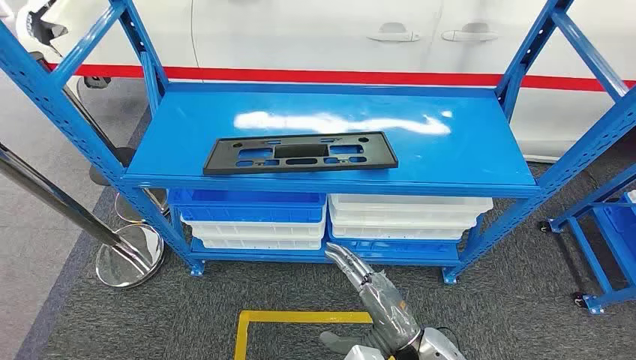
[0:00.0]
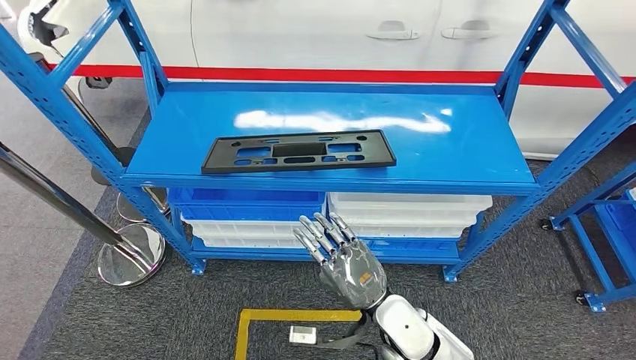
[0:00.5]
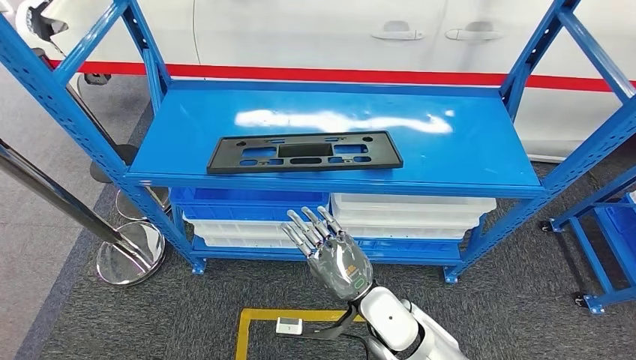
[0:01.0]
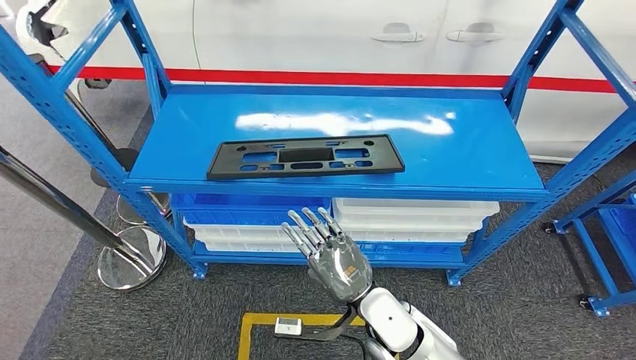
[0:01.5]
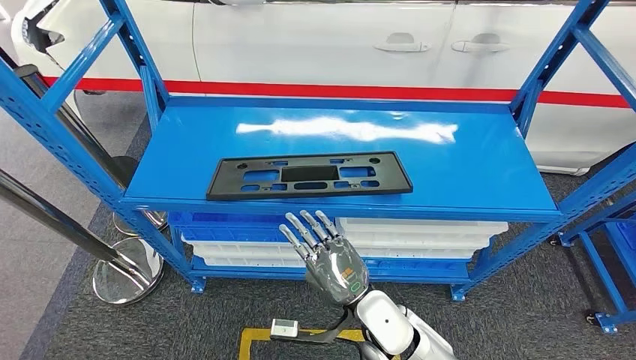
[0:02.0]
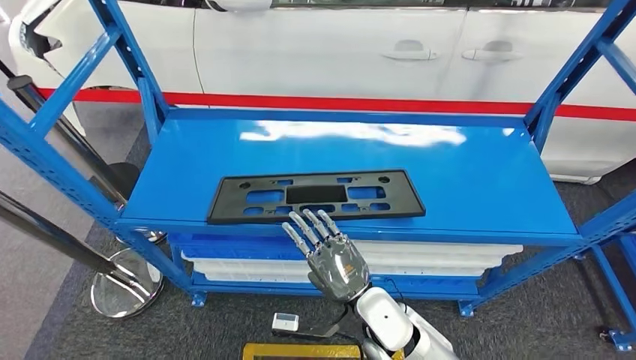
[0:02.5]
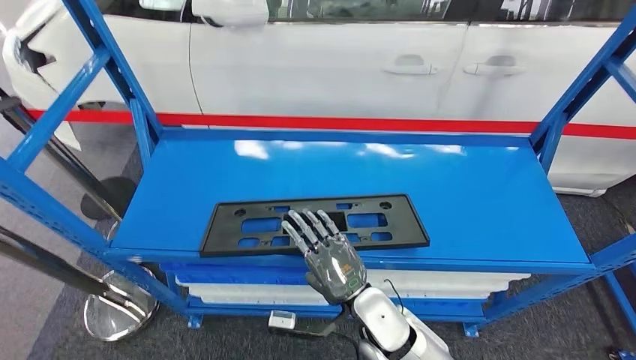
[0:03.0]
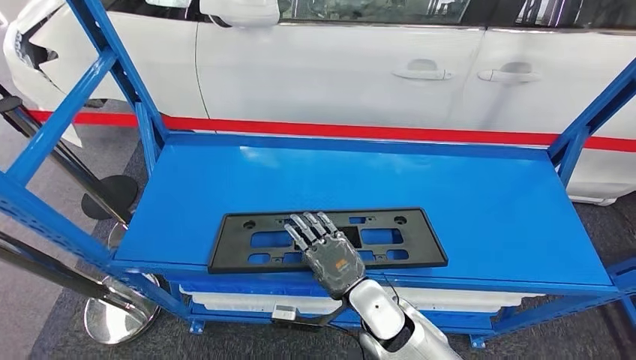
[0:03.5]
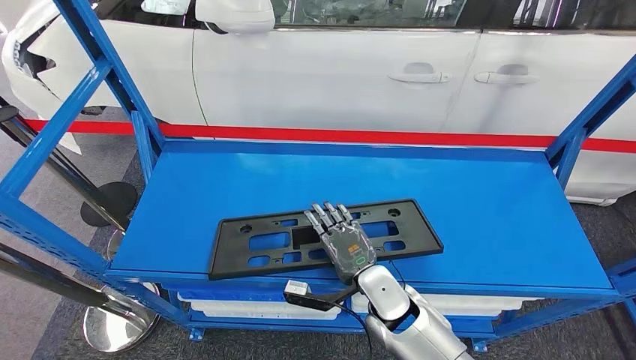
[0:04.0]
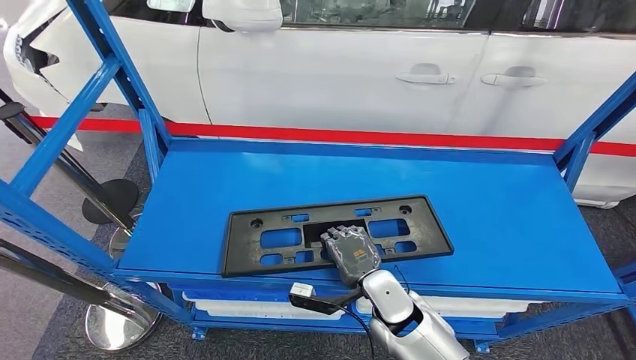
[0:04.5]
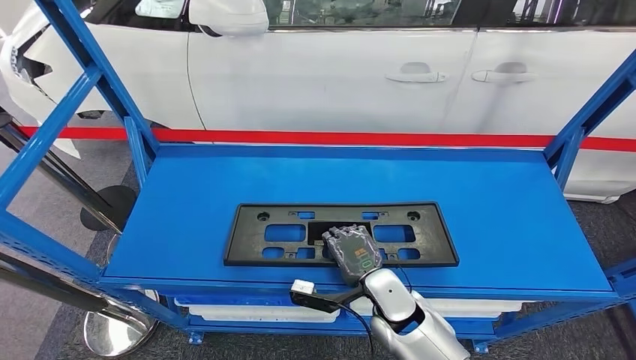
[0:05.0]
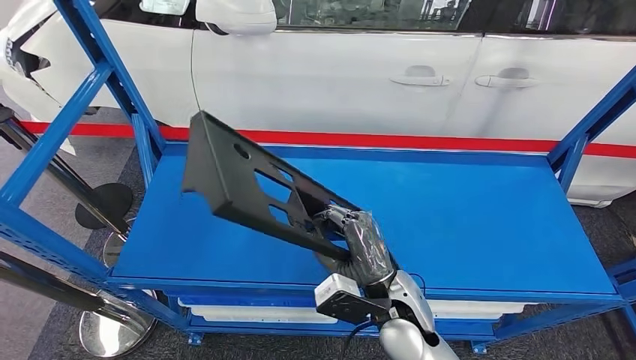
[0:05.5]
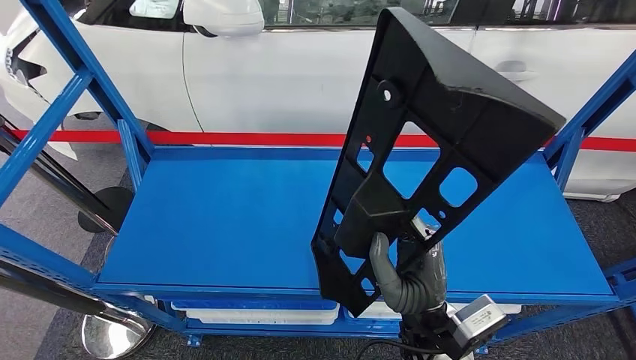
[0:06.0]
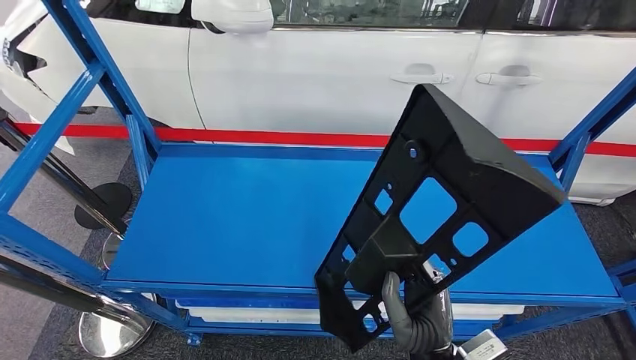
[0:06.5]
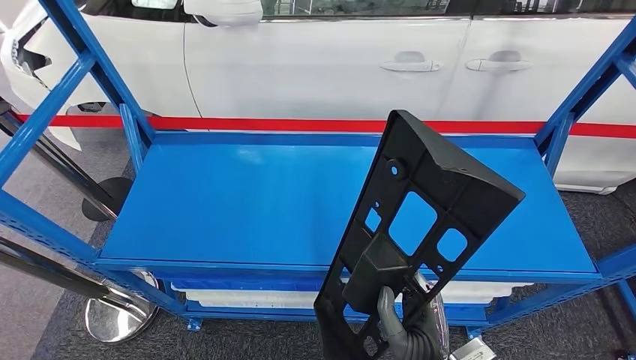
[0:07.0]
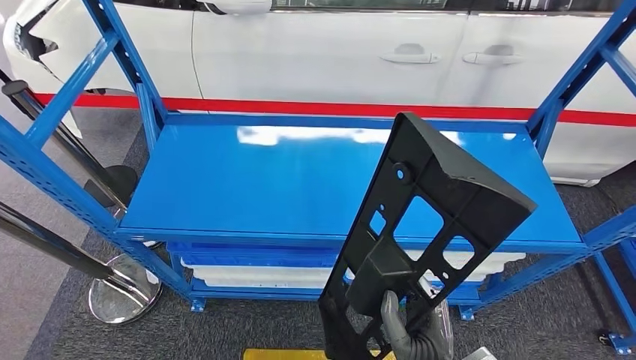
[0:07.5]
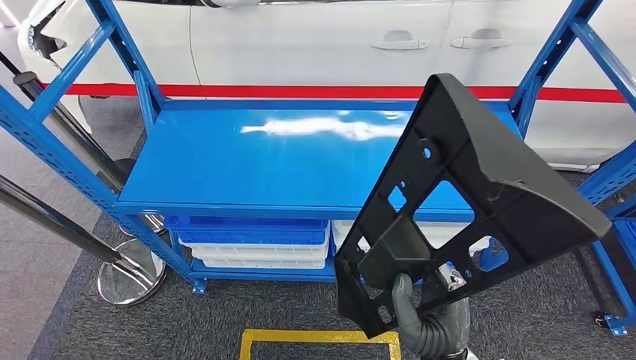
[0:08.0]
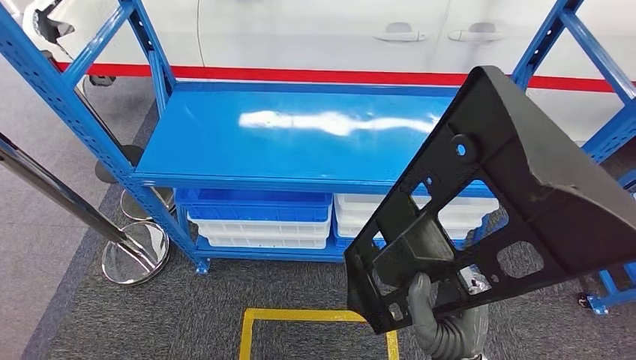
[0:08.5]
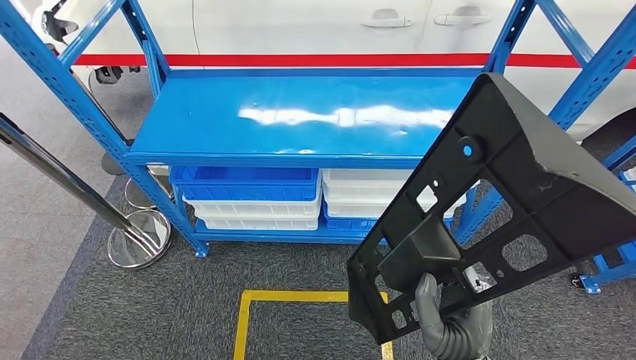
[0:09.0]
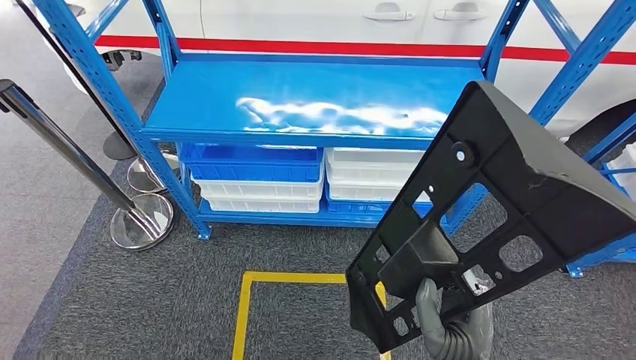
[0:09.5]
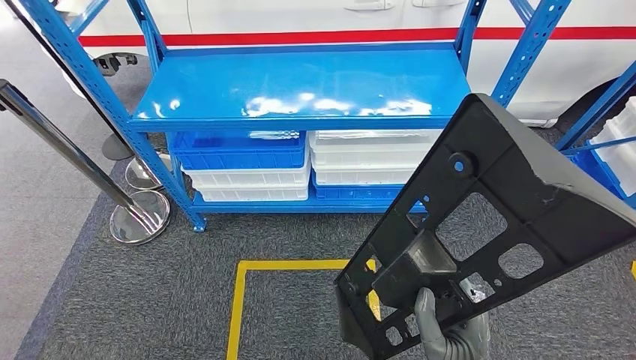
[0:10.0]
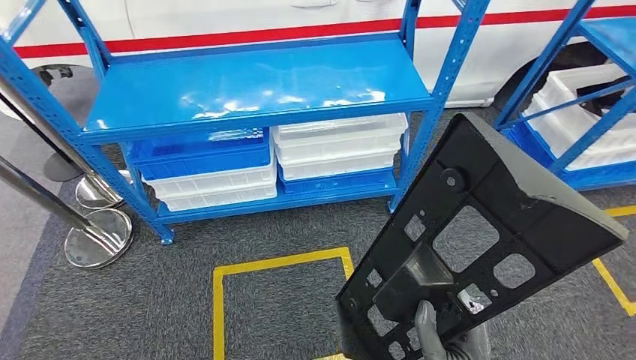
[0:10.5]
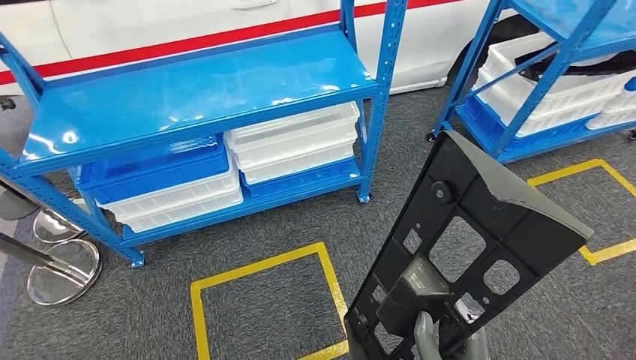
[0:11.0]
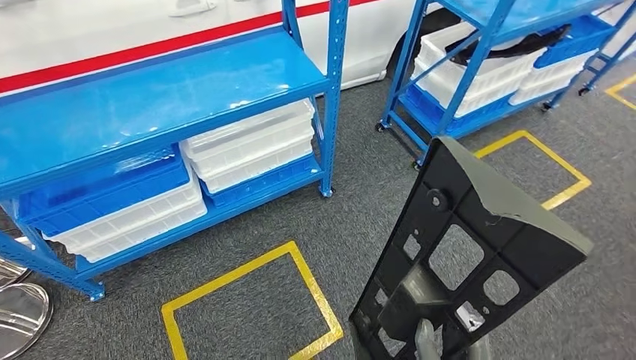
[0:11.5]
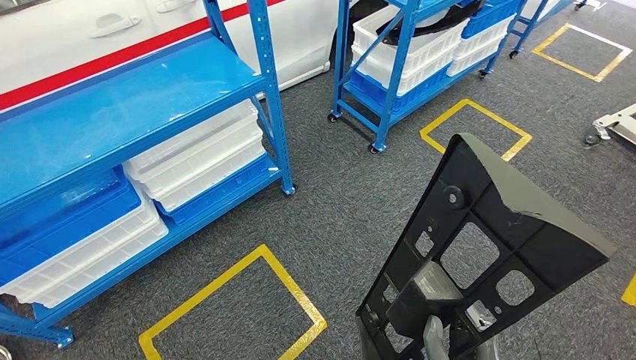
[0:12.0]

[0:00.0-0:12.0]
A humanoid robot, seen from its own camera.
Step, 0:00.0 to 0:07.5: Pick up the large parts from the shelf.

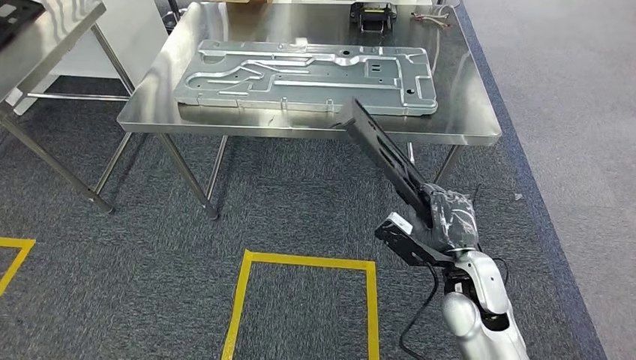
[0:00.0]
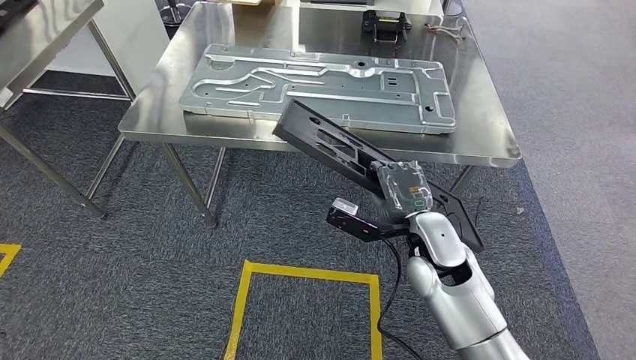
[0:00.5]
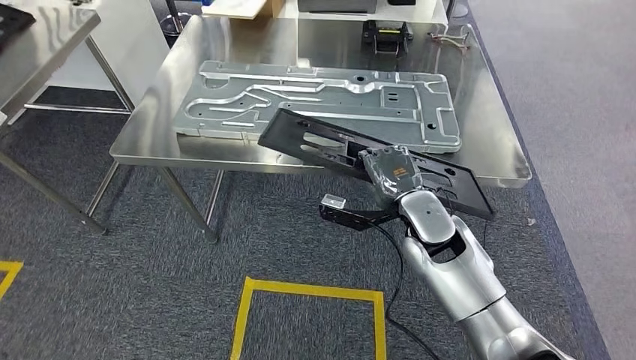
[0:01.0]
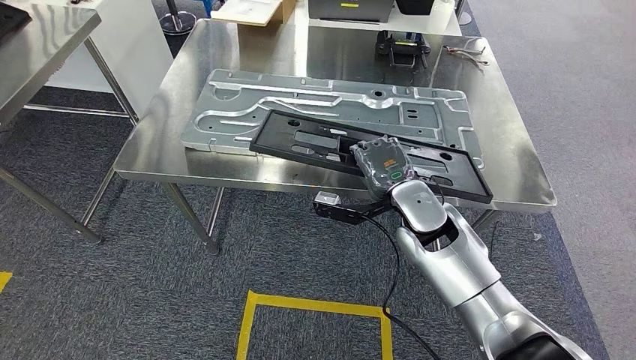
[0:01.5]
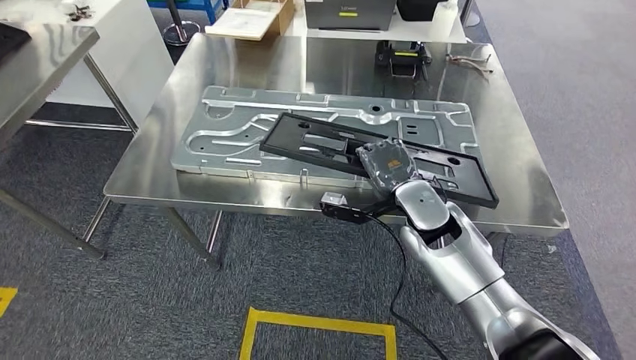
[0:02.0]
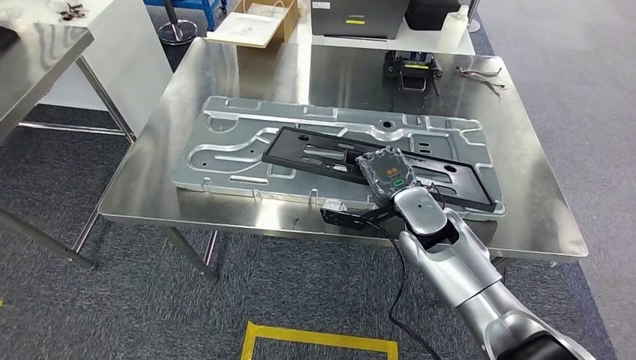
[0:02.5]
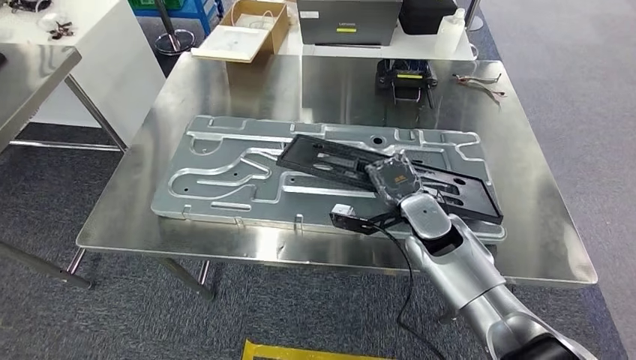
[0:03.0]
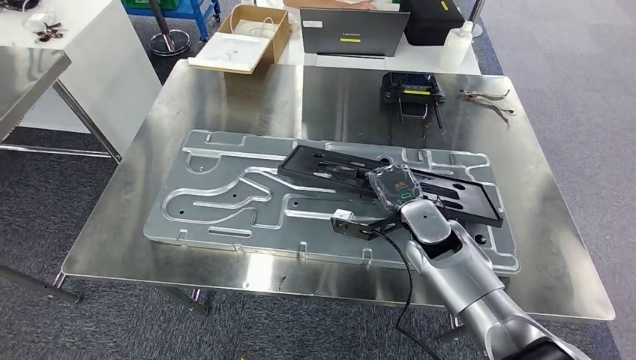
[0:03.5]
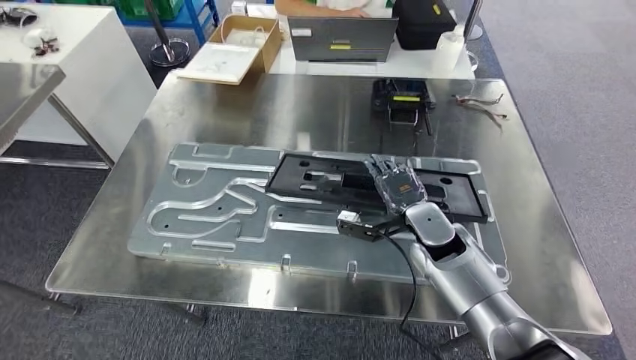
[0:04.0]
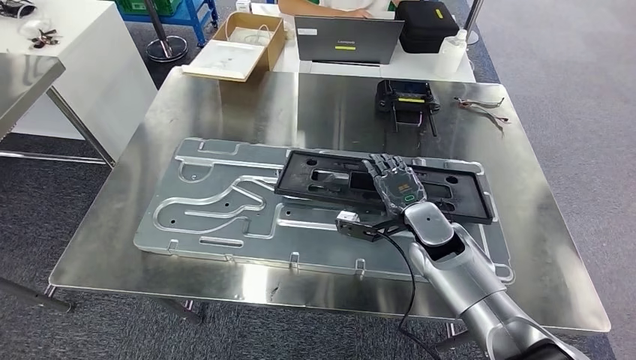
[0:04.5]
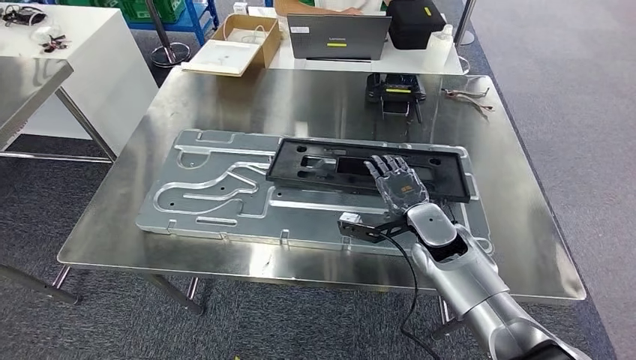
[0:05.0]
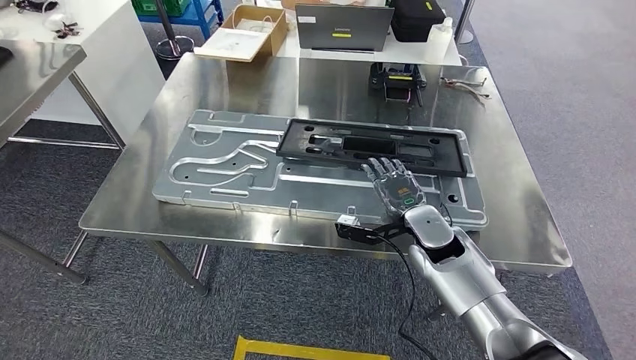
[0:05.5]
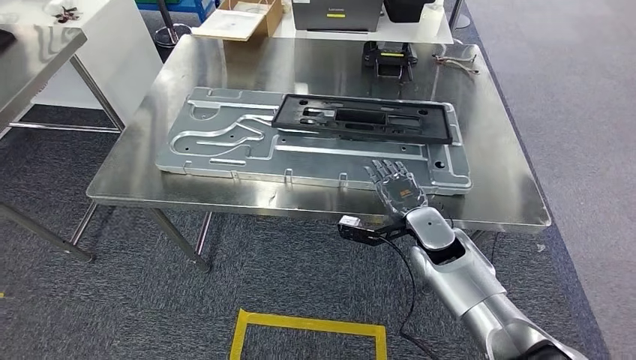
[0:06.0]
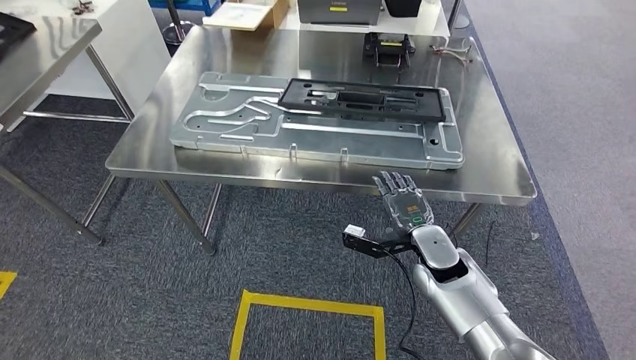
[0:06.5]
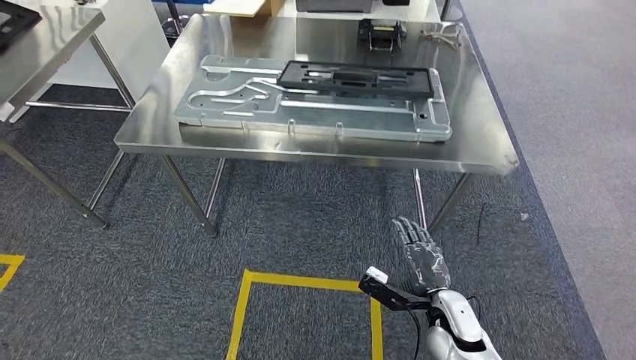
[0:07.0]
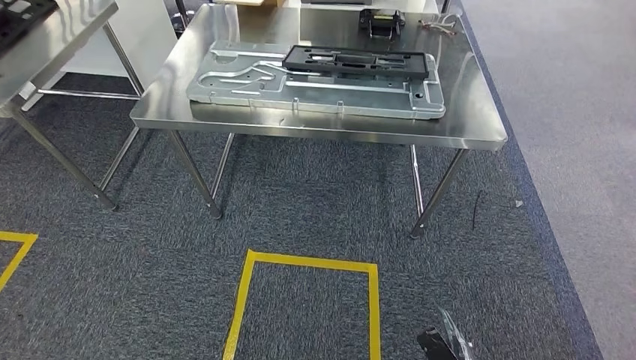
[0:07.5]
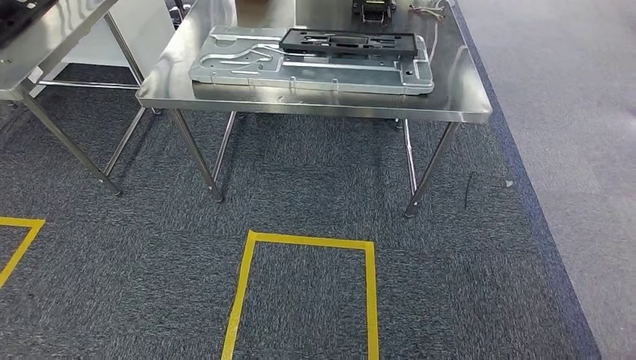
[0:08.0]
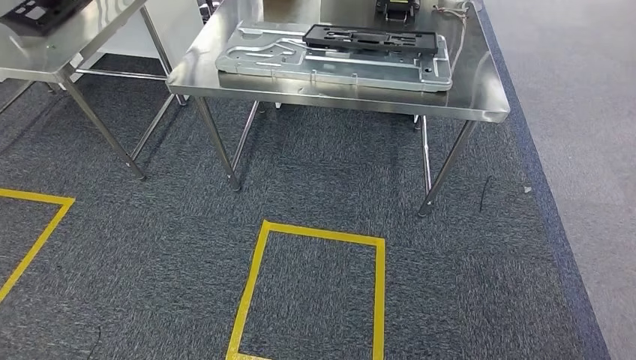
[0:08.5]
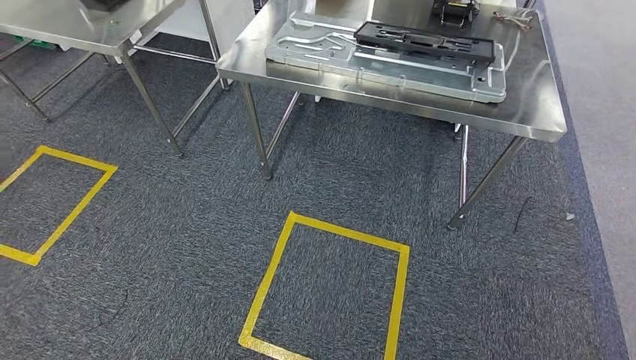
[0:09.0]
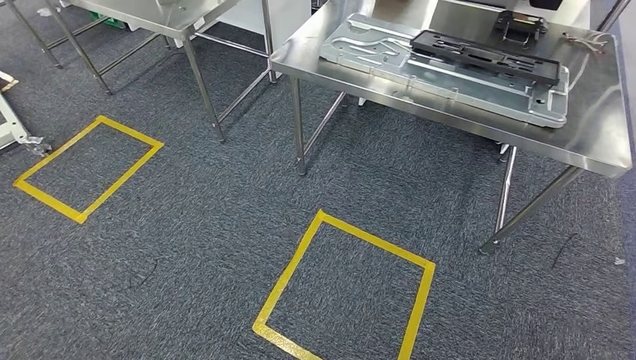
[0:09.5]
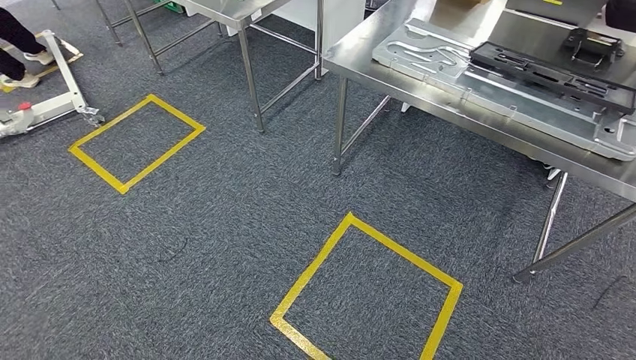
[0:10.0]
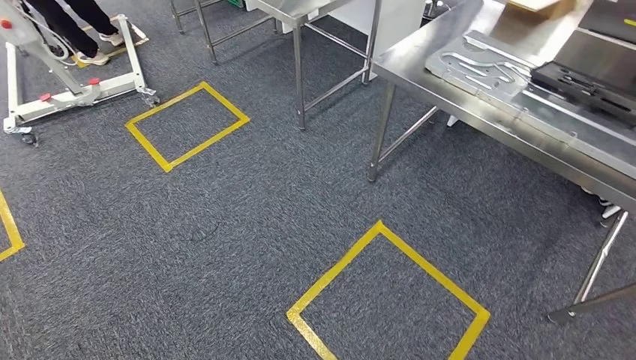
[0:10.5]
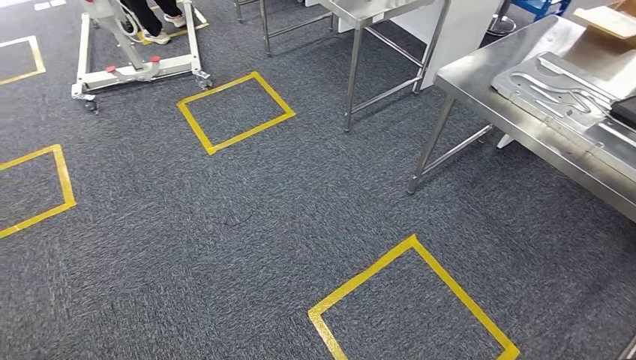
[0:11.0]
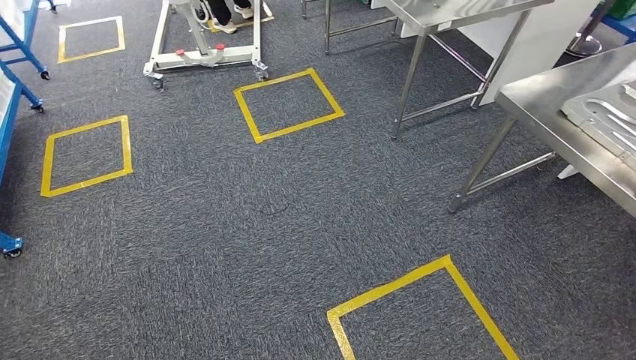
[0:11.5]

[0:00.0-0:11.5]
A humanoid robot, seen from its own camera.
Step, 0:00.5 to 0:07.5: Insert the large parts into the corresponding slots on the workbench.
